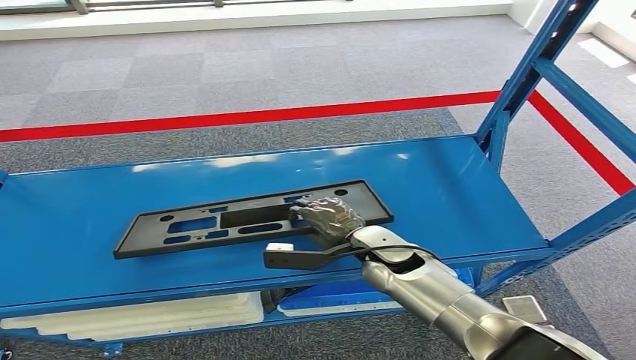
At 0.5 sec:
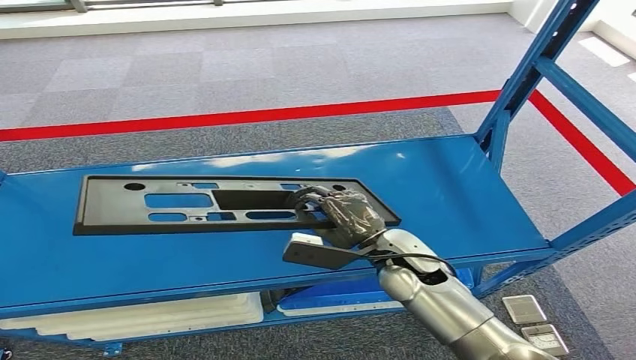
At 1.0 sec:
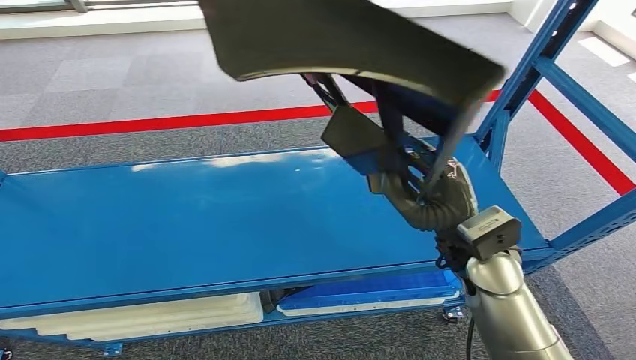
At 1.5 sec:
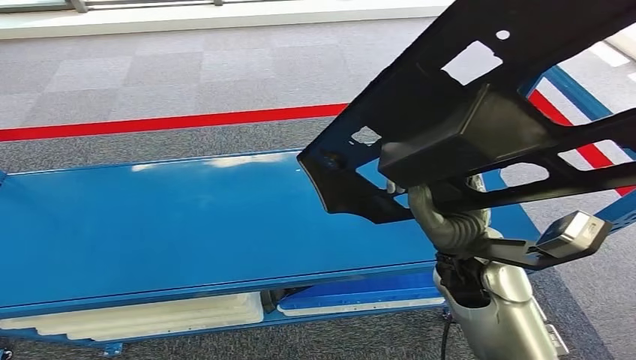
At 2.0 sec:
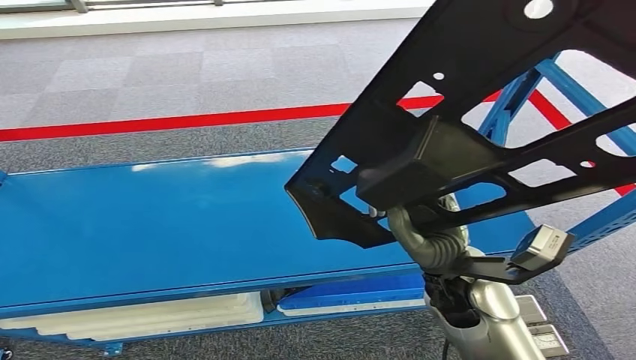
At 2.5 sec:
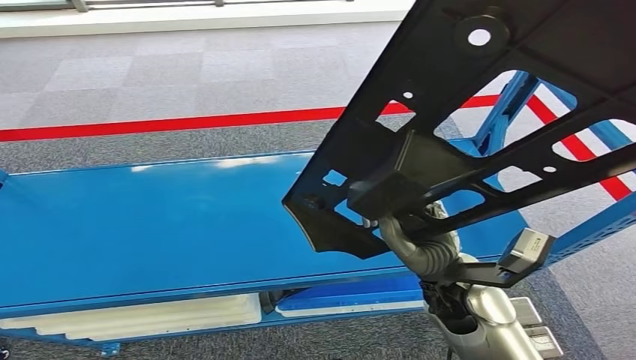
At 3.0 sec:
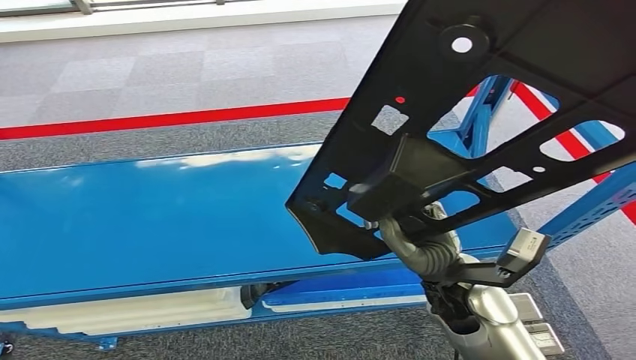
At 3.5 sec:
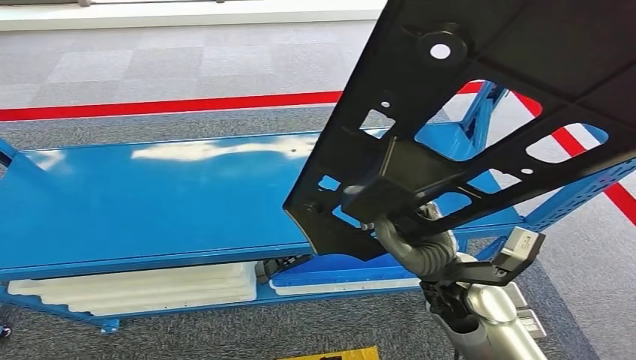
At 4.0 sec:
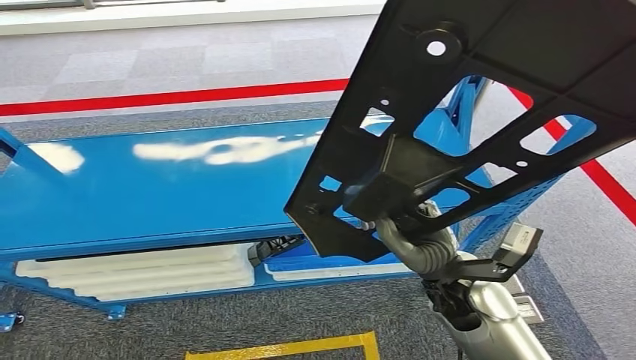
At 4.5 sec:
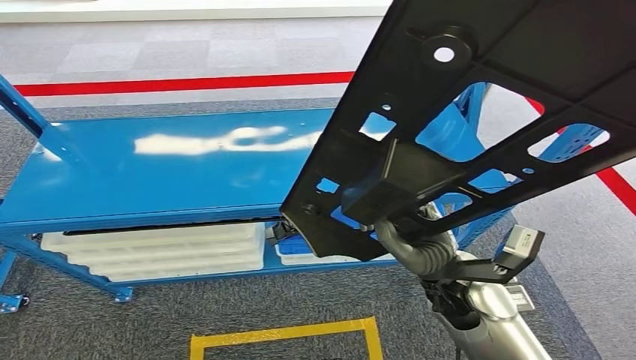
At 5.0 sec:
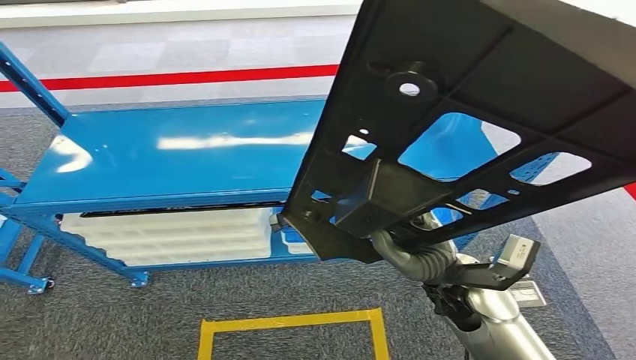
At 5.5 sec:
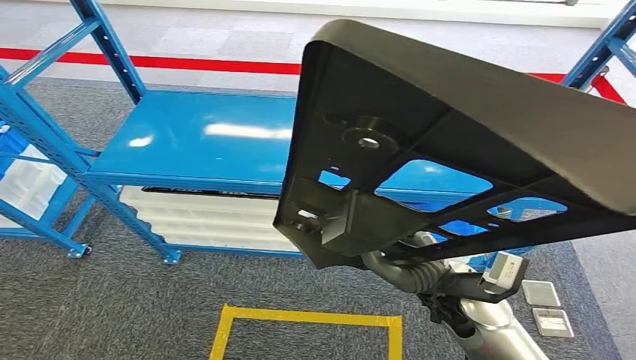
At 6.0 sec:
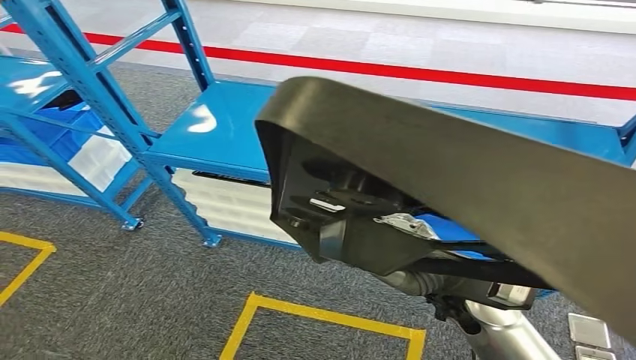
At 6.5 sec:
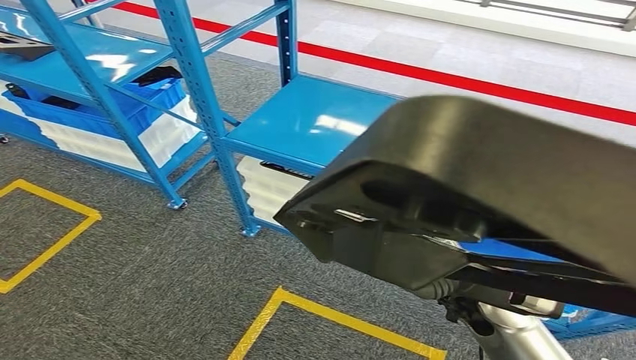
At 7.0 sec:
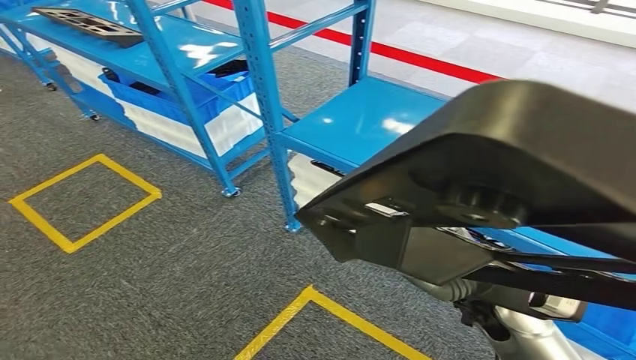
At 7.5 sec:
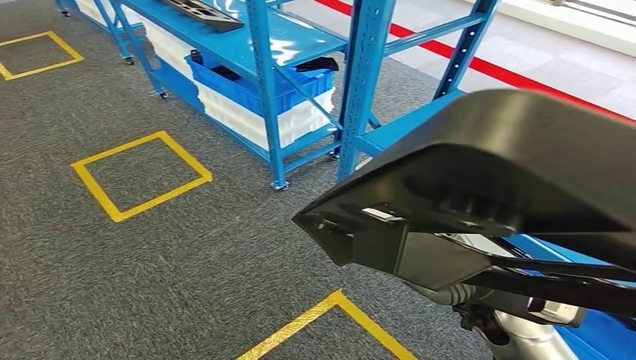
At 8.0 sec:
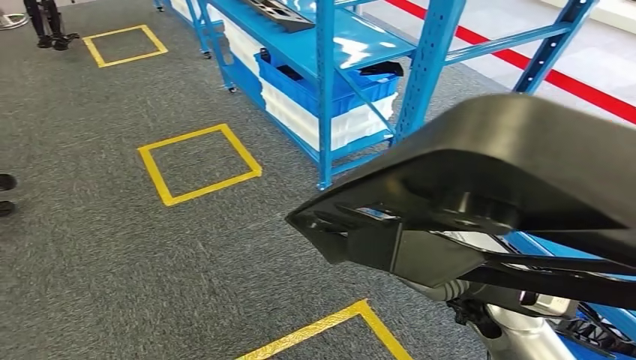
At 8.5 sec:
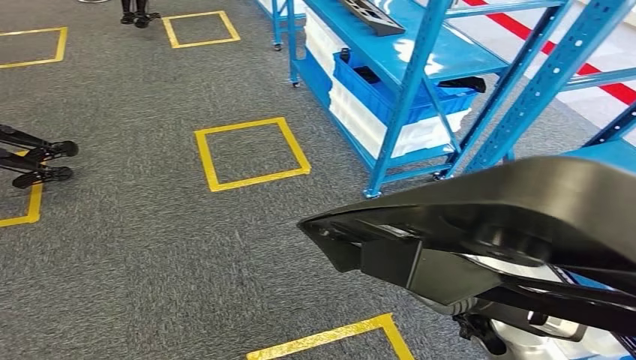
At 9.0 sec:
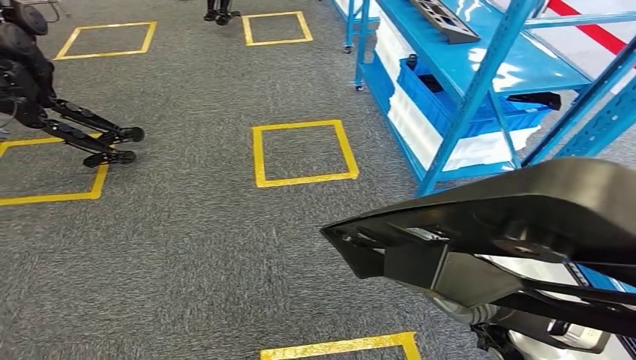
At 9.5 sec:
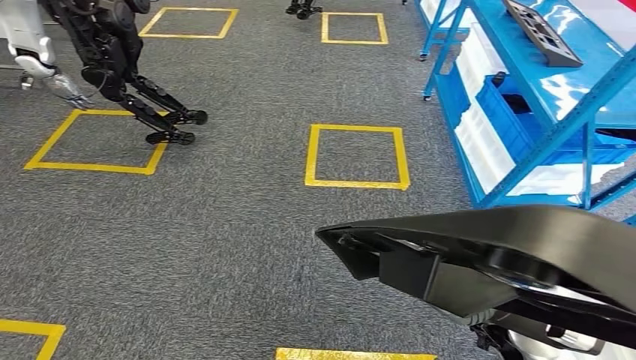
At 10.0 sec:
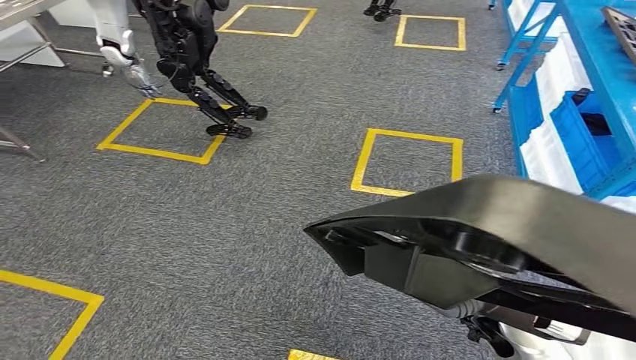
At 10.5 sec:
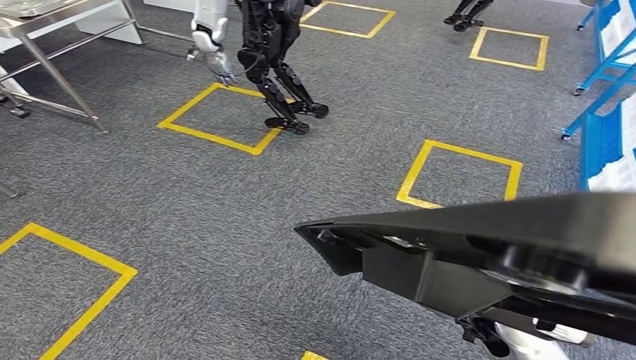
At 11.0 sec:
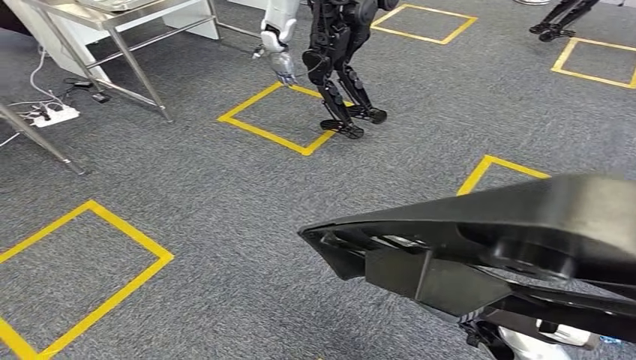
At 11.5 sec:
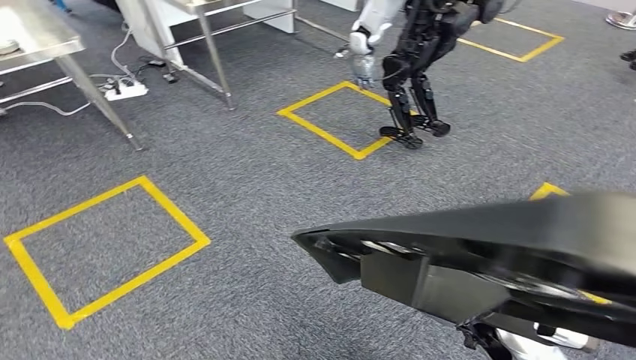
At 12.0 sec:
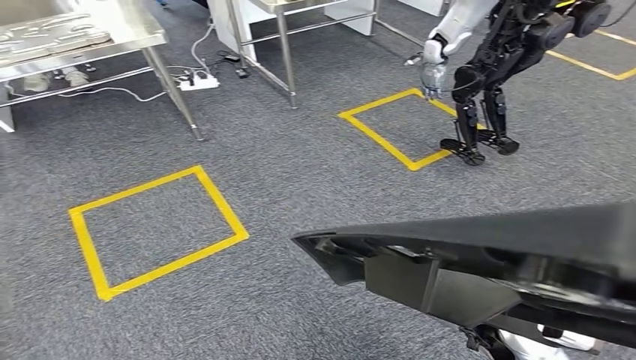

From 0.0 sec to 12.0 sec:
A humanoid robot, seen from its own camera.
Step, from 0.0 sec to 2.0 sec: Pick up the small component from the shelf.

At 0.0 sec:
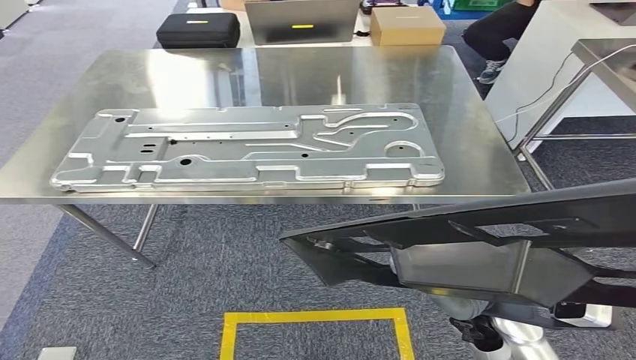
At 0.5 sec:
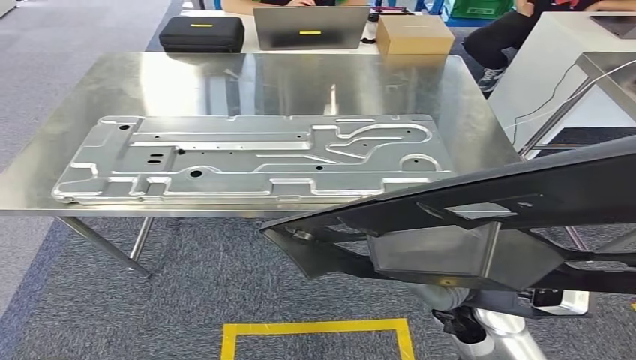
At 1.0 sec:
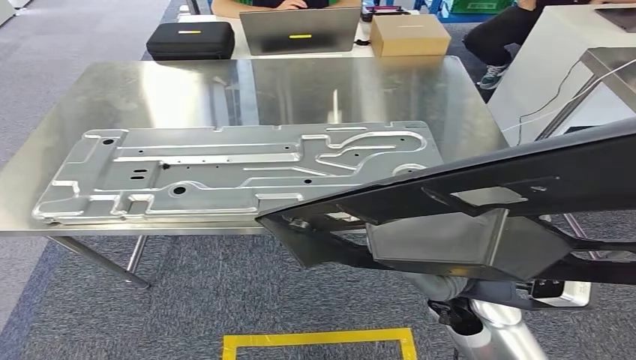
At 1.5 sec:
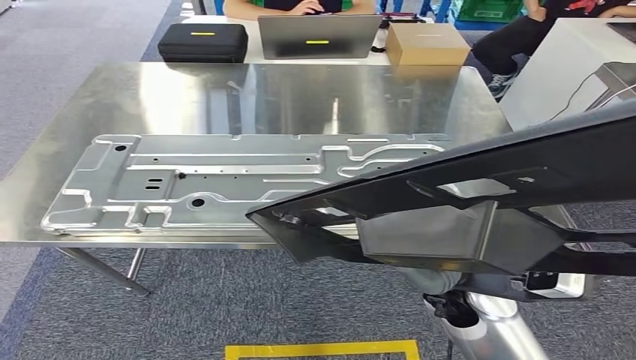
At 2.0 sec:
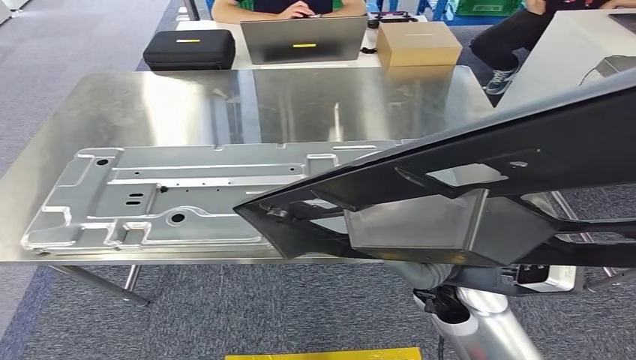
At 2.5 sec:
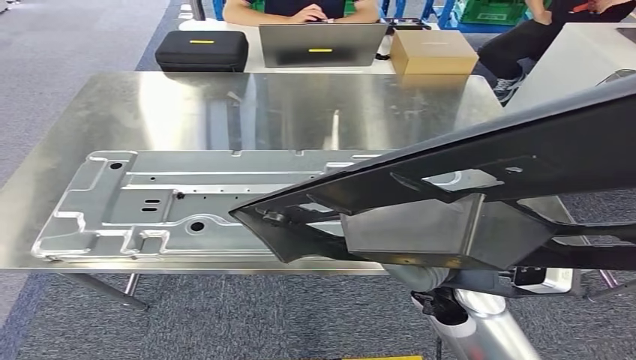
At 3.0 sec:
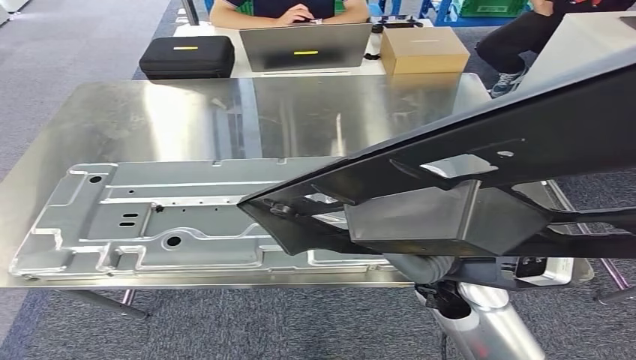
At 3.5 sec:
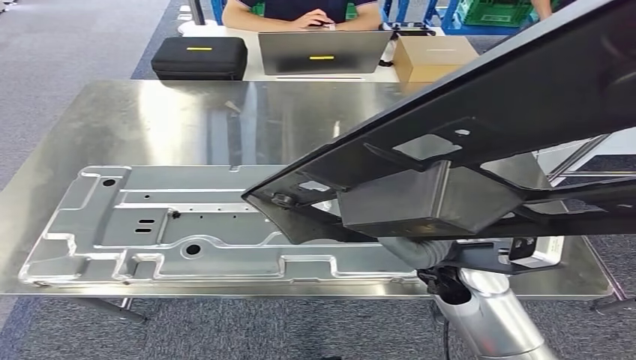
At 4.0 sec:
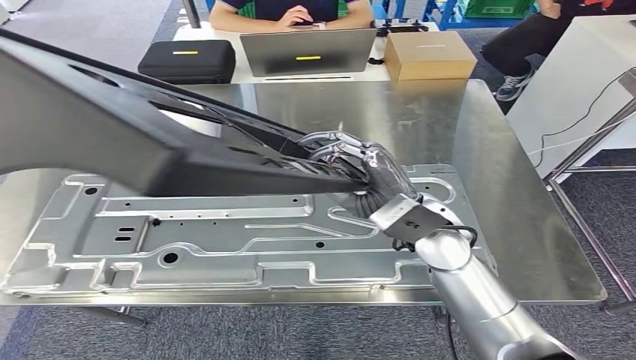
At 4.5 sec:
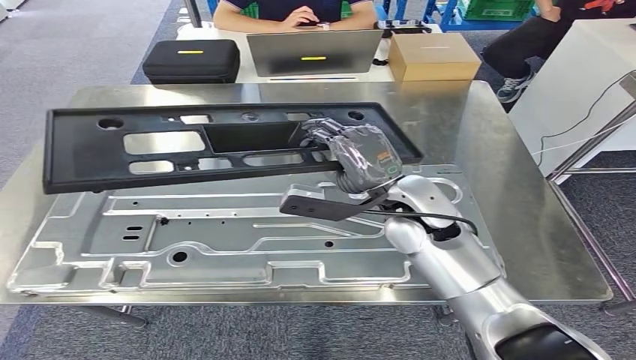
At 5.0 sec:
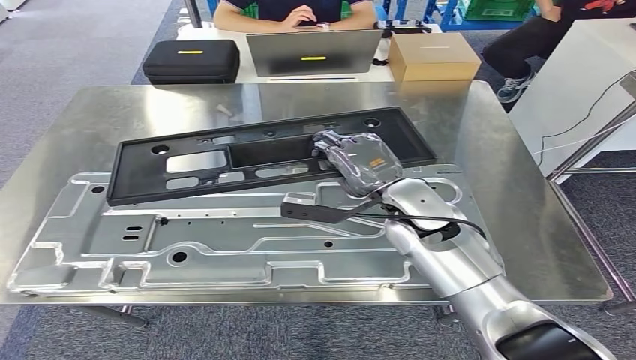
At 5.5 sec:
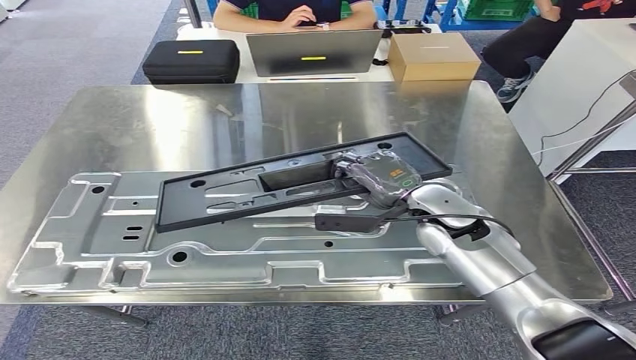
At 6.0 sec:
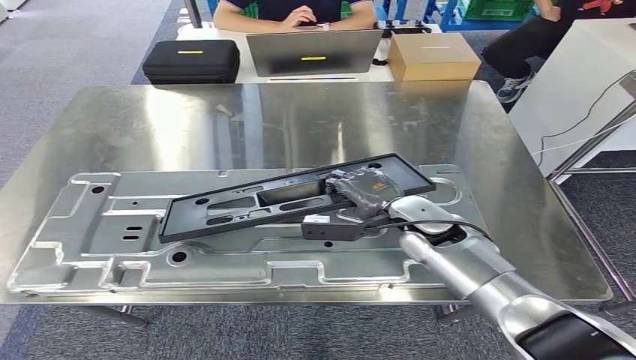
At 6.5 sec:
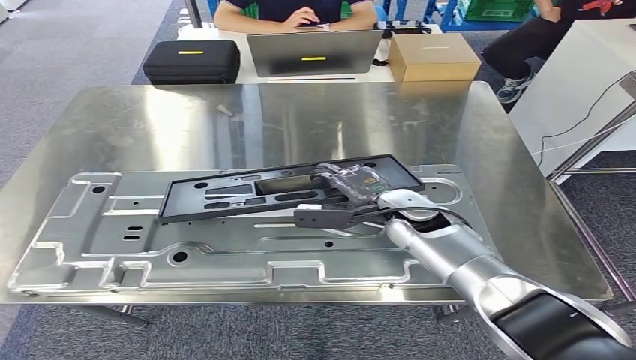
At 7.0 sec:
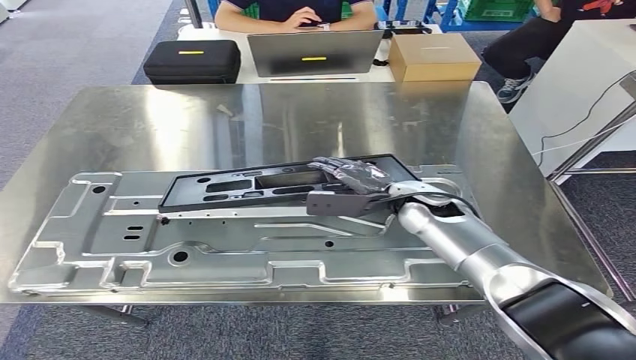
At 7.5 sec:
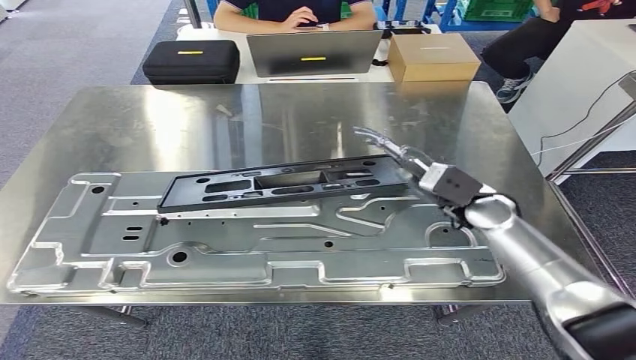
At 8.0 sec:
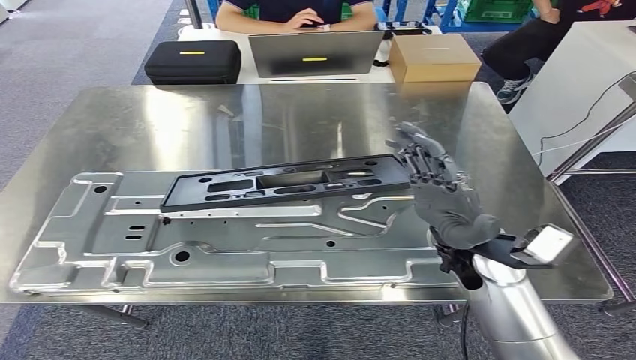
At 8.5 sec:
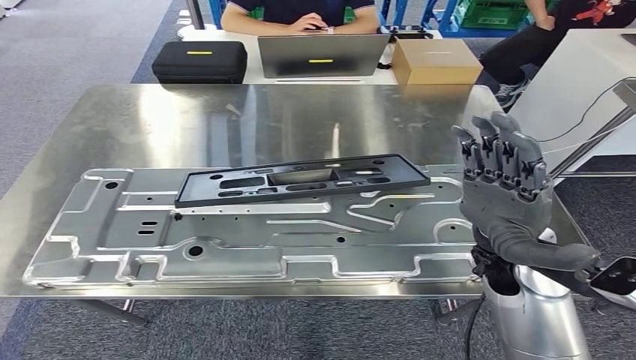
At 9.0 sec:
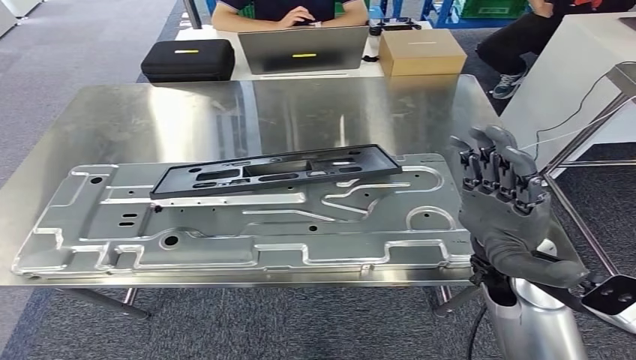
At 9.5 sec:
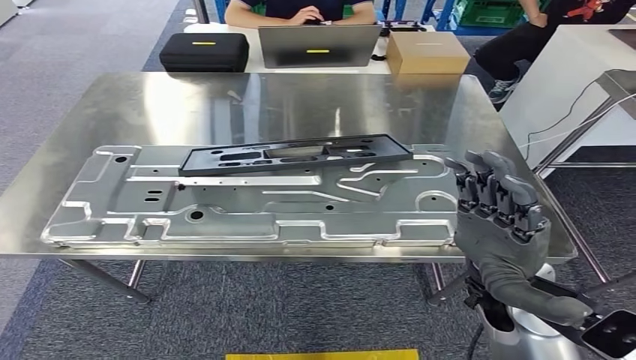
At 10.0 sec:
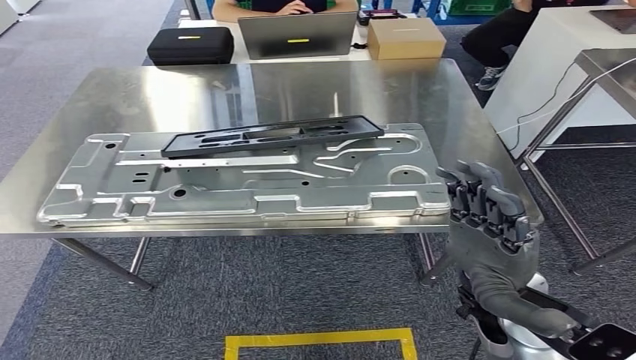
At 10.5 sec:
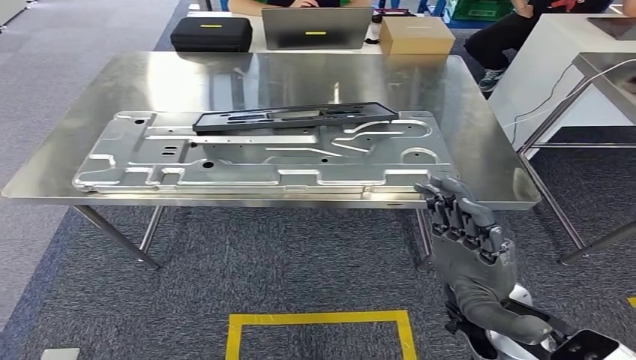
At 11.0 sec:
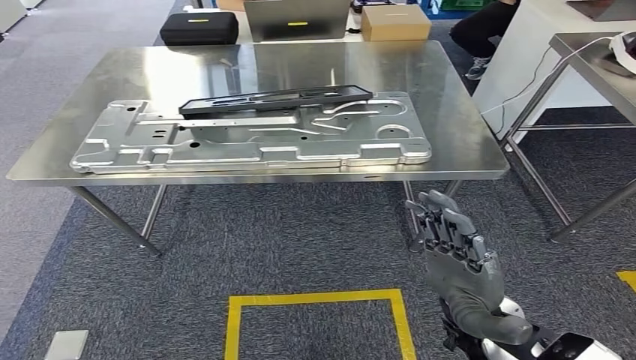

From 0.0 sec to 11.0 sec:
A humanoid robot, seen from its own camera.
Step, from 0.0 sec to 3.0 sec: Move the small component to the workbench.
Step, from 3.5 sec to 7.5 sec: Insert the small component into the corresponding slot on the workbench.
From 5.5 sec to 7.5 sec: The right hand moves to the right, about 5 cm.
